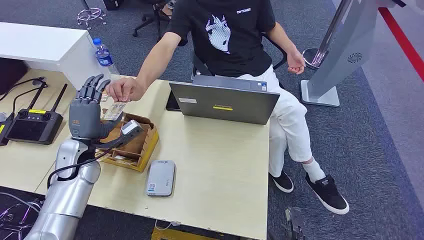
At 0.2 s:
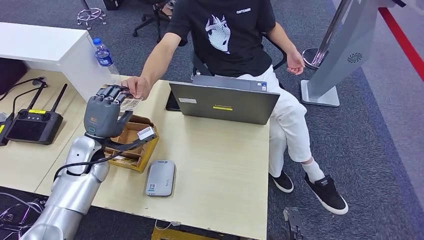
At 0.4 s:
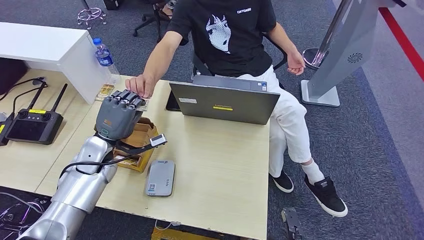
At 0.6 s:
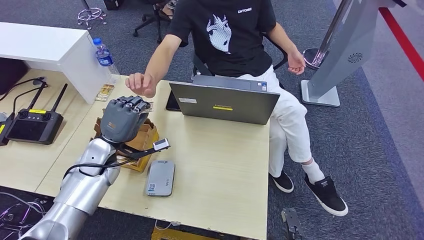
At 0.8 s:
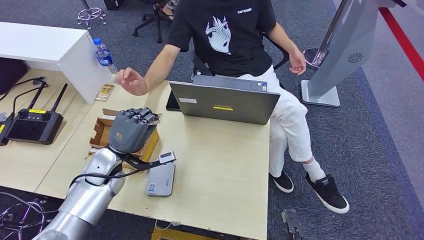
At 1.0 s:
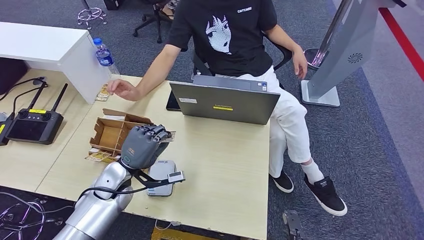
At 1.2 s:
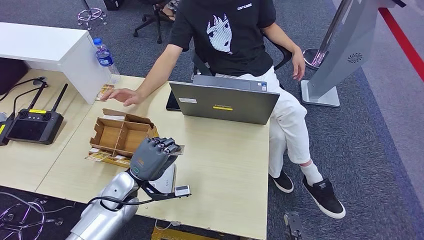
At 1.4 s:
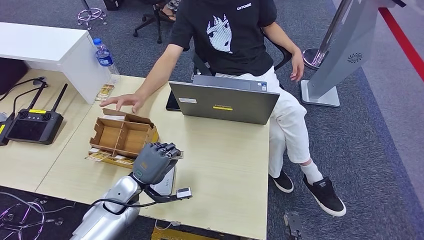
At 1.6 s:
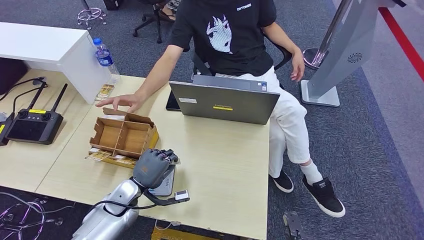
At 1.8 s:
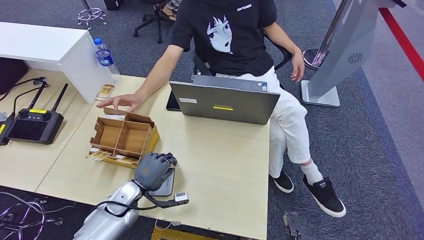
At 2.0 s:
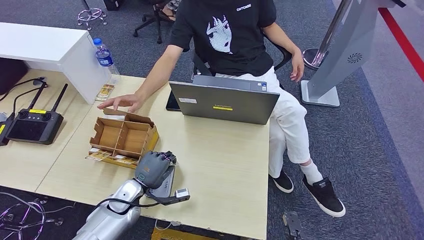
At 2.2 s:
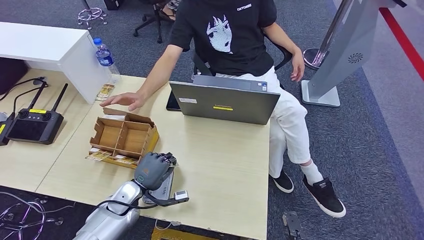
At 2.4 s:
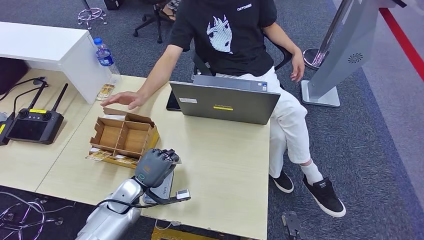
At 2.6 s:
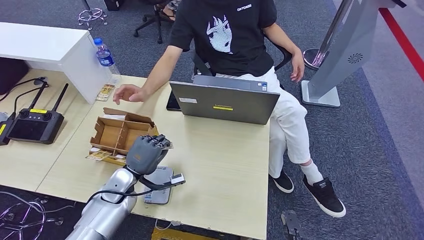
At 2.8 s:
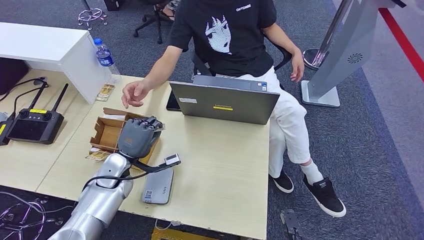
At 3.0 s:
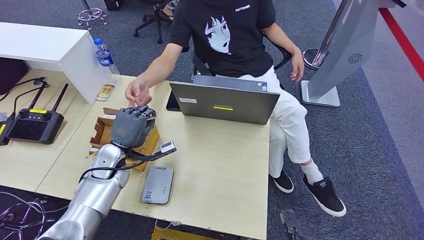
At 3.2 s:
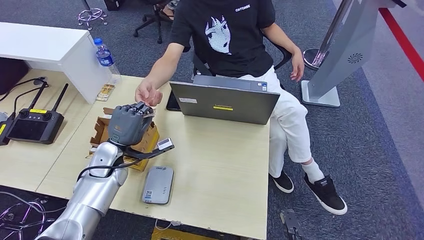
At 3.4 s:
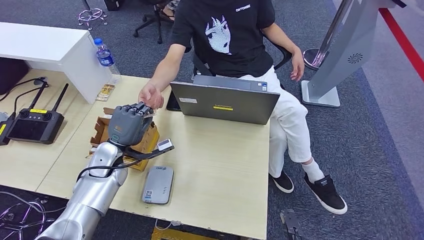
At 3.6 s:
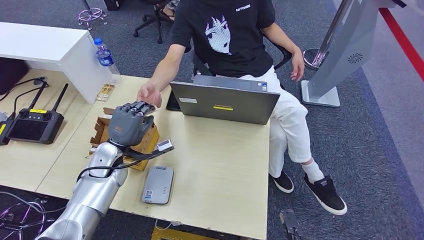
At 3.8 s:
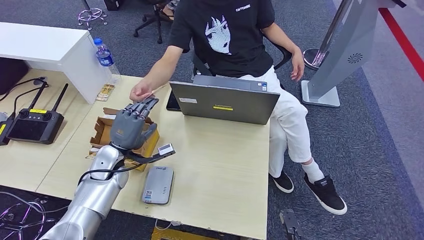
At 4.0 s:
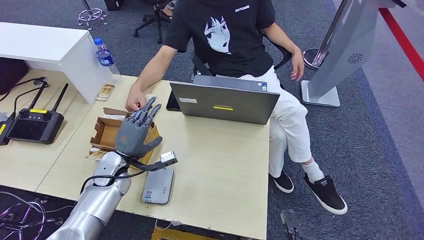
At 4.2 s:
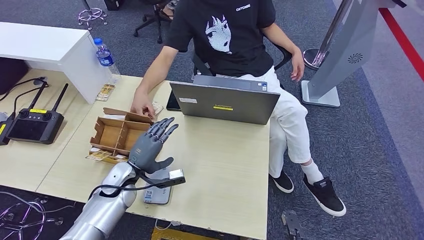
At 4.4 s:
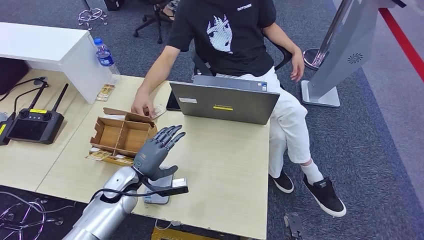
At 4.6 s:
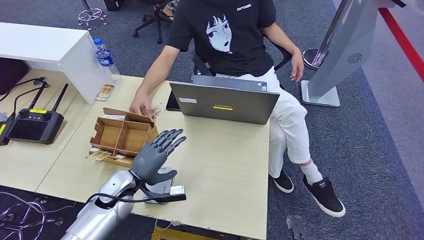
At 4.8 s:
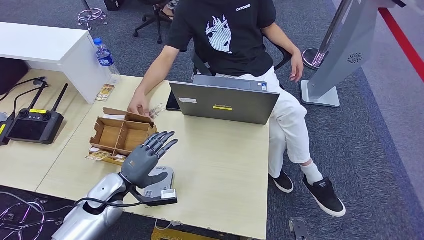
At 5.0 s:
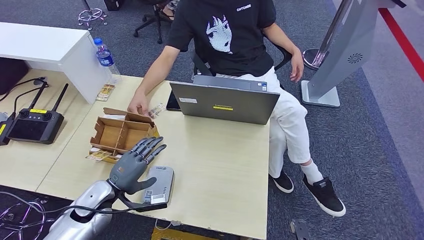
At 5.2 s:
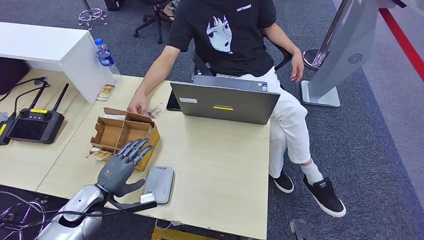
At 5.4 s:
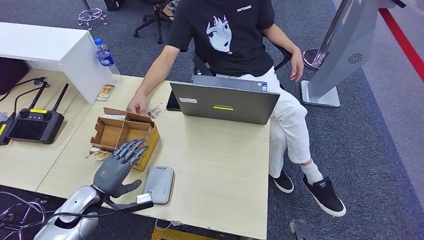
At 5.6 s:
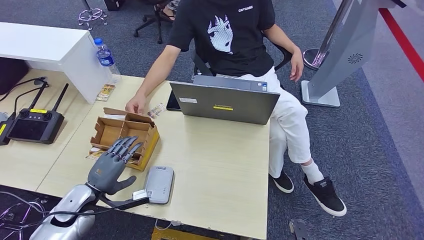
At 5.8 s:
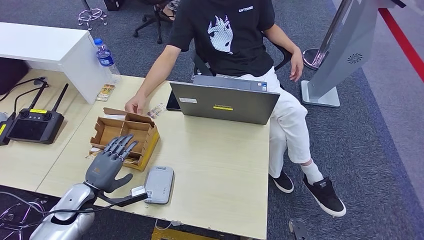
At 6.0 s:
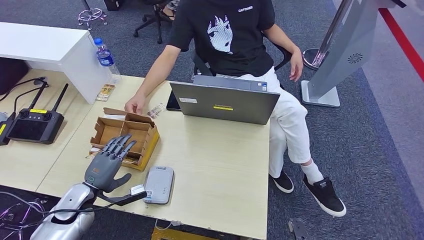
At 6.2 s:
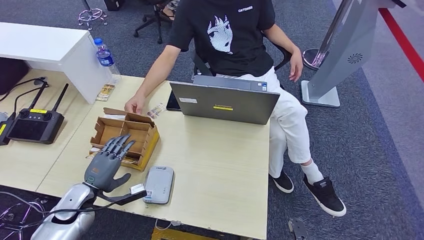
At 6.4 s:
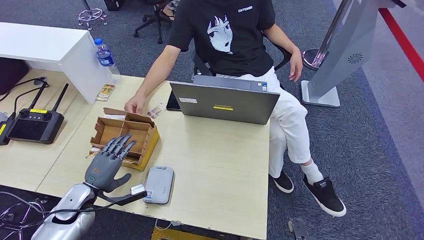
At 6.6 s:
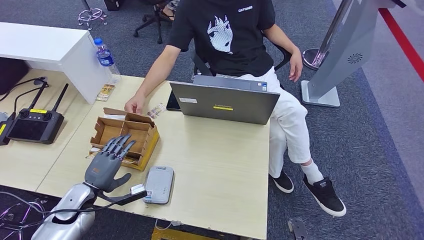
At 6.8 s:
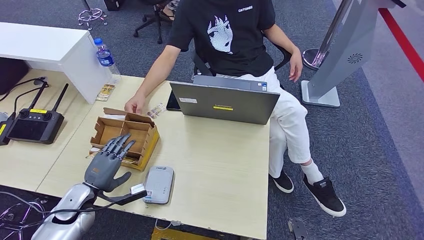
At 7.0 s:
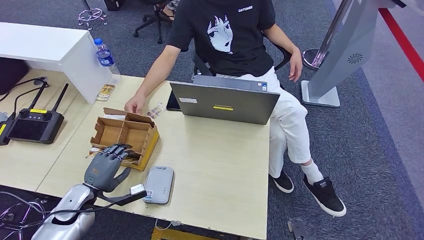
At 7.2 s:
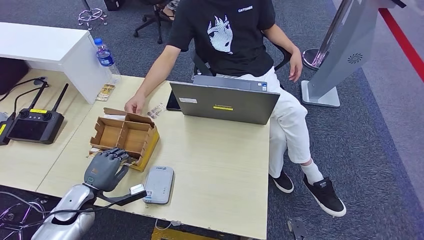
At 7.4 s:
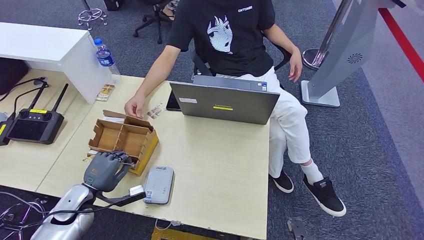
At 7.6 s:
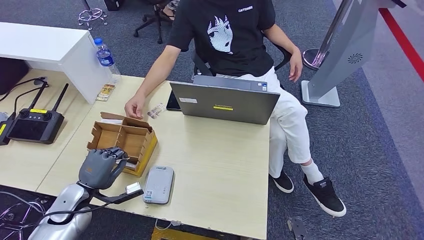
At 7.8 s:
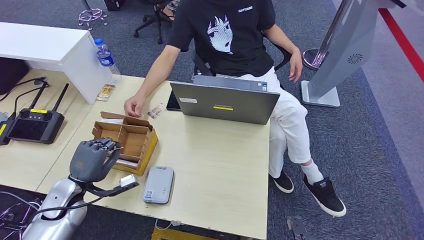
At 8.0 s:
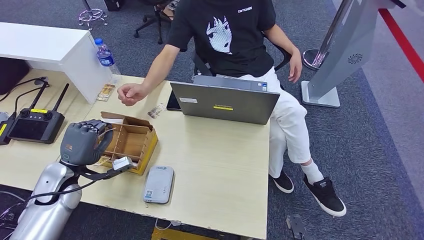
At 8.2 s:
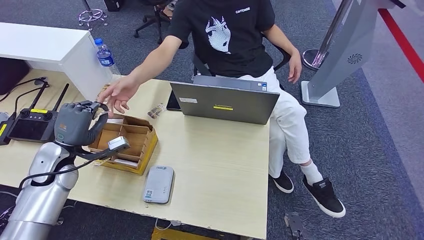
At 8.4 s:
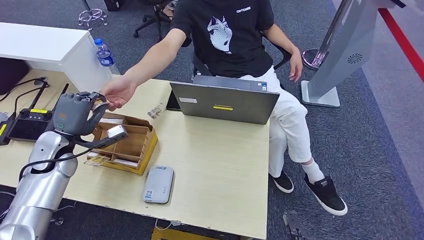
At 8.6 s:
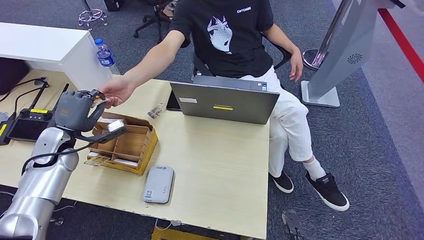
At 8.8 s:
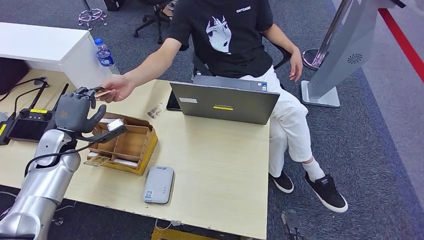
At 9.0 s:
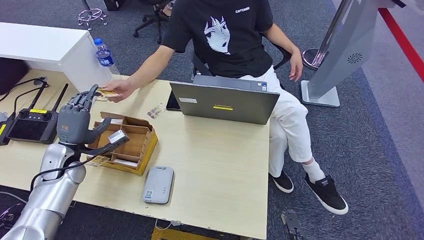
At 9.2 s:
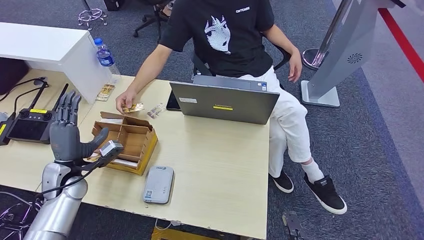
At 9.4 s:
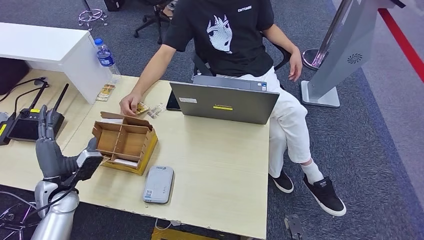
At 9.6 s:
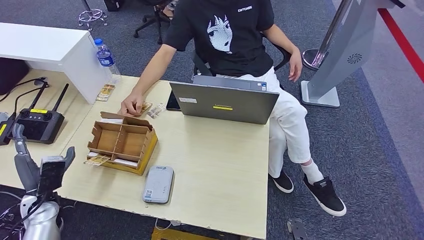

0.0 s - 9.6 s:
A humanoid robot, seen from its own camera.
Step, 0.0 s - 1.2 s: Take the ID card from the person's hand.
Step, 1.4 s - 2.8 s: Place the ID card on the card reader.
Step, 3.0 s - 4.2 s: Hand the ID card to the person.
Step, 7.0 s - 8.0 s: Pick up the room key from the key card box.
Step, 8.4 s - 9.6 s: Hand the room key to the person.
1.6 s - 3.2 s: The left hand heads forward and upward, covering roughly 10 cm.
3.2 s - 4.8 s: The left hand shifts some 10 cm backward.
4.8 s - 6.4 s: The left hand goes about 10 cm to the left.
6.4 s - 8.0 s: The left hand moves upward, approximately 5 cm.
8.0 s - 9.6 s: The left hand shifts approximately 5 cm downward.

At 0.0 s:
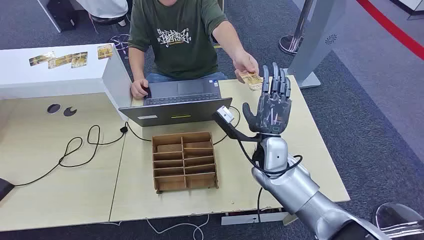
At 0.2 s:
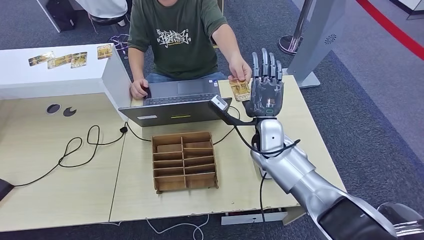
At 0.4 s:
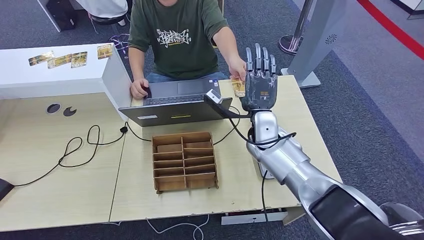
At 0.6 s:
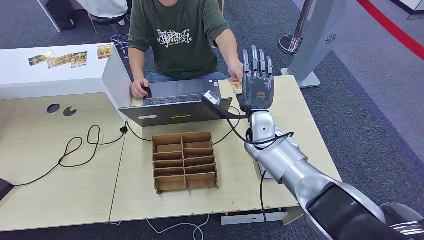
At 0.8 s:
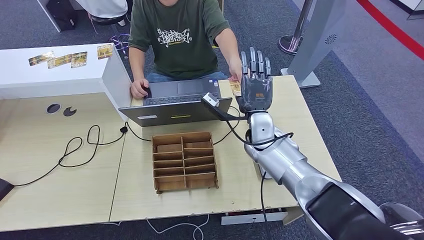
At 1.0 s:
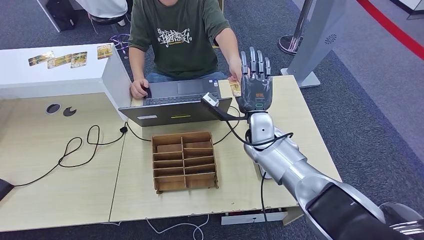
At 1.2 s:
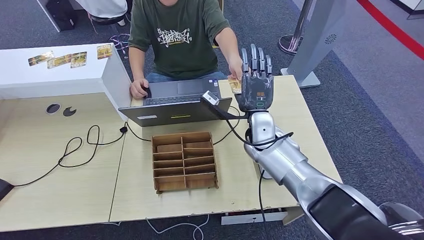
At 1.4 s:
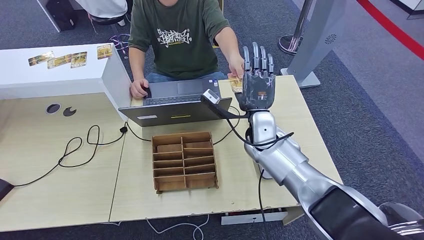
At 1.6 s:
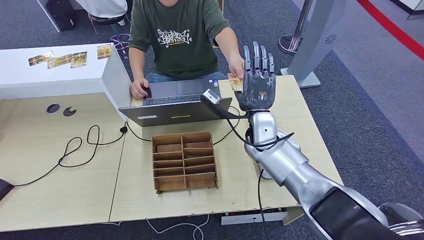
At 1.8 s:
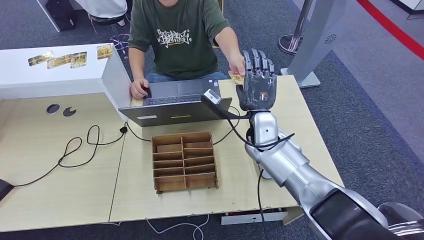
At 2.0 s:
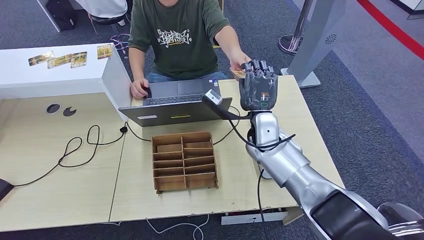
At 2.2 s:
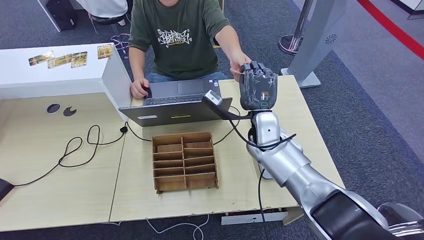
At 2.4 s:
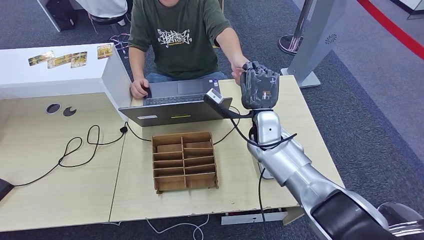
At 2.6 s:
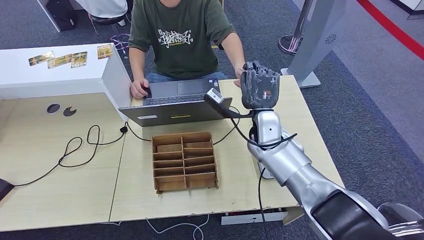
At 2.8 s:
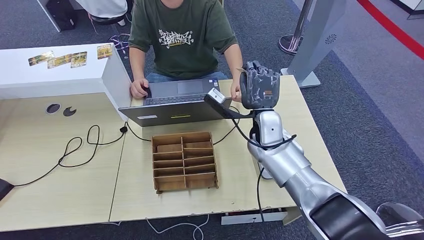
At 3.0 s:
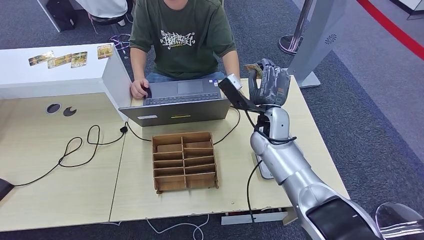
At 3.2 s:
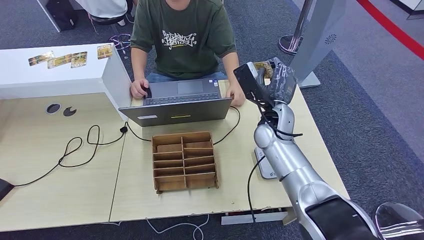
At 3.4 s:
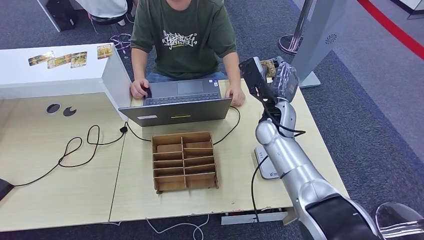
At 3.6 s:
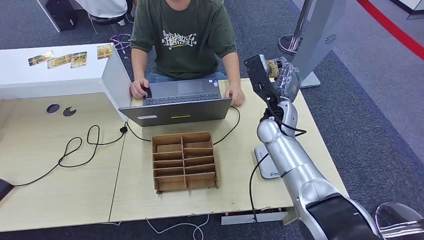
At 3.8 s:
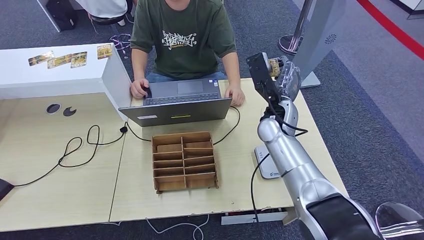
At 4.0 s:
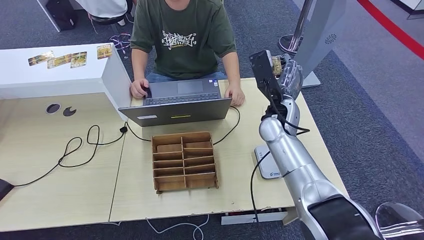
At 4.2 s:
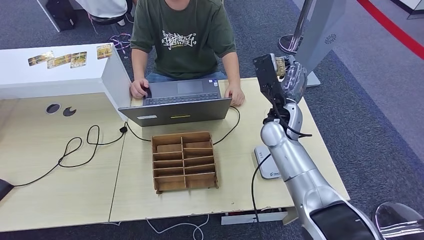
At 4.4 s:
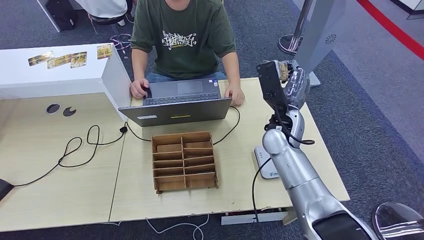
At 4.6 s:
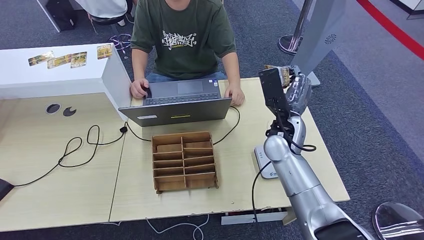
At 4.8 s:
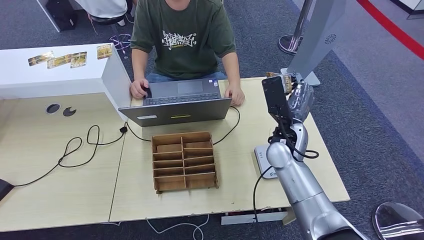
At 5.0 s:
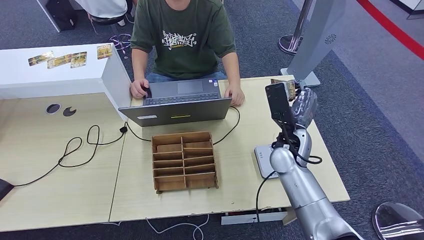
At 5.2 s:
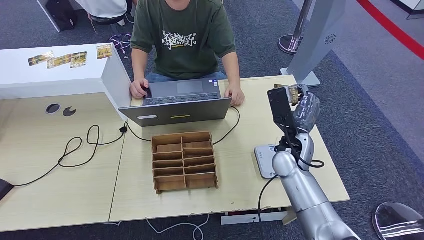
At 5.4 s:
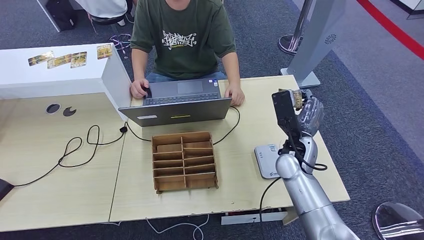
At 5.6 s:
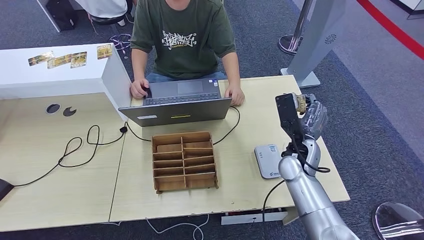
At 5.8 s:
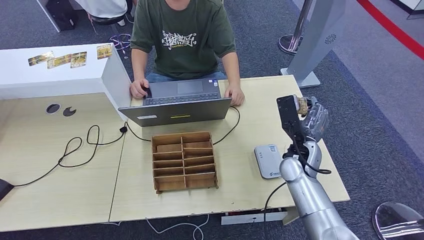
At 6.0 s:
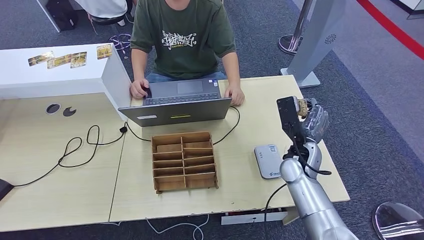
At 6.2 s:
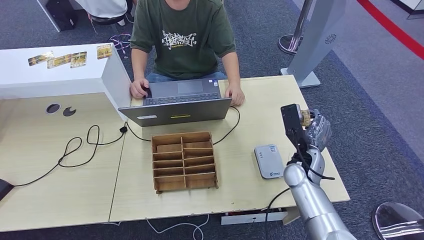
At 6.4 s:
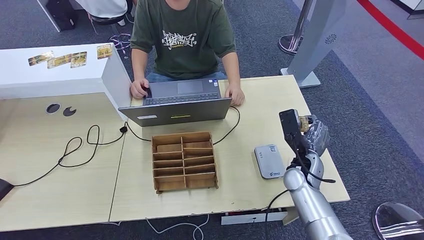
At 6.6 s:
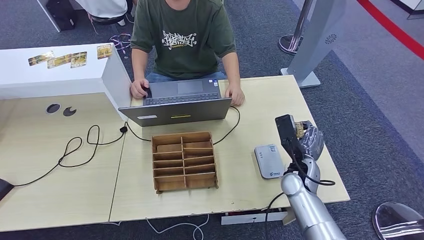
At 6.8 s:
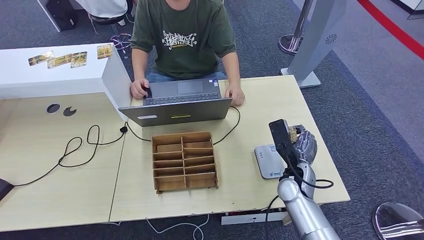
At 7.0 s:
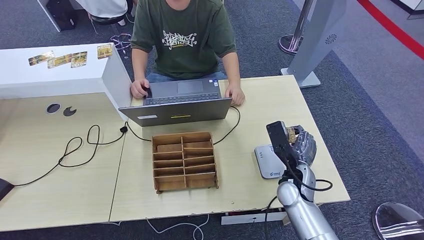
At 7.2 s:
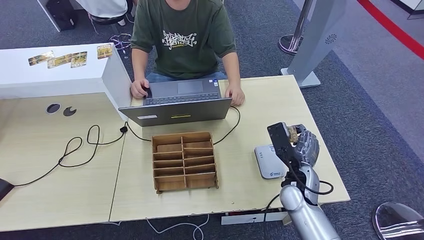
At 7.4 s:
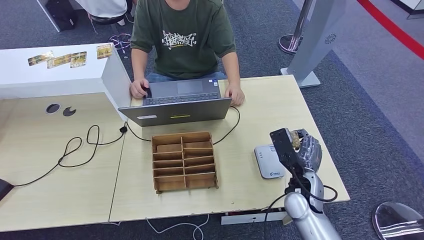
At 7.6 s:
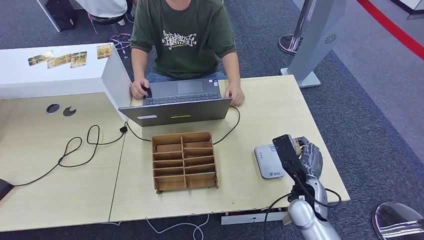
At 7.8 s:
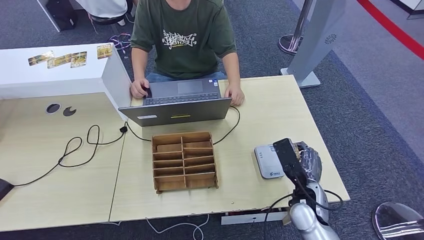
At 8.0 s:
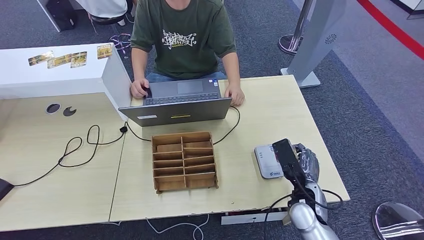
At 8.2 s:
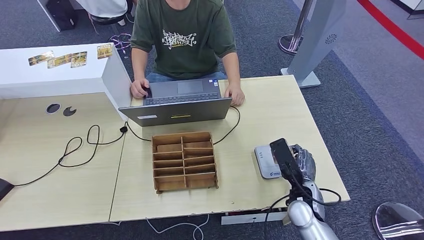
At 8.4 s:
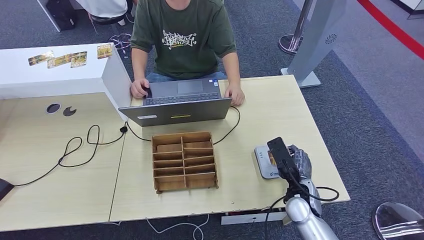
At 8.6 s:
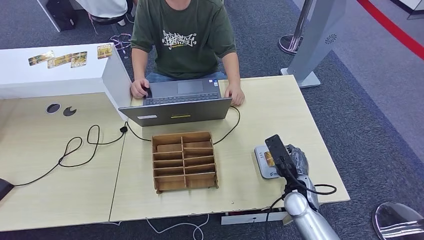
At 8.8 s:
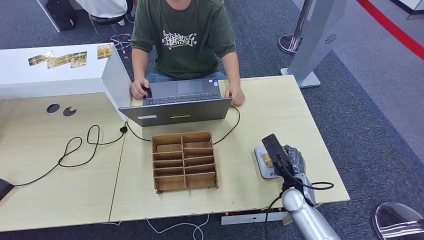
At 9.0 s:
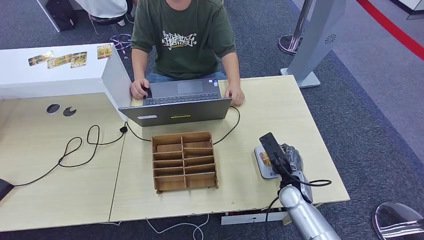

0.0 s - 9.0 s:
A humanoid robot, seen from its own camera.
Step, 0.0 s - 3.4 s: Take the ID card from the person's hand.
4.4 s - 6.0 s: The right hand goes about 10 cm downward and to the right.
6.0 s - 7.6 s: The right hand goes about 10 cm backward.
7.6 s - 9.0 s: The right hand changes place by roughly 5 cm.
